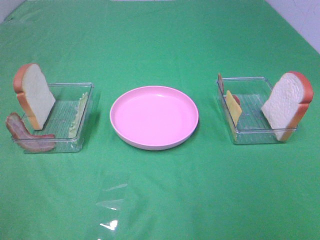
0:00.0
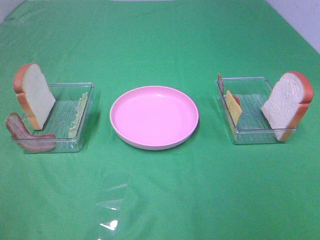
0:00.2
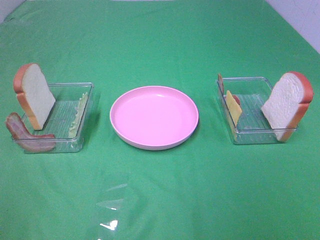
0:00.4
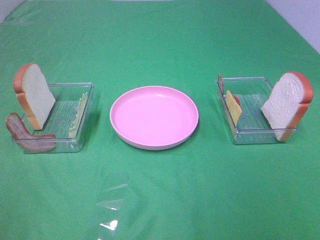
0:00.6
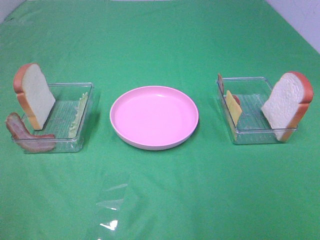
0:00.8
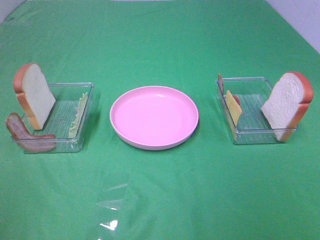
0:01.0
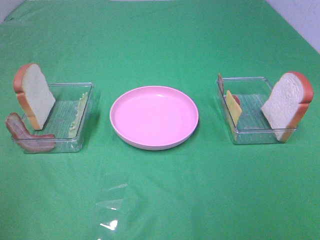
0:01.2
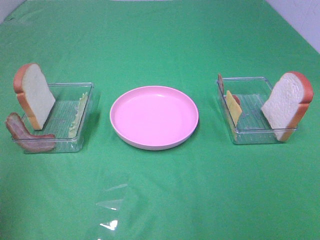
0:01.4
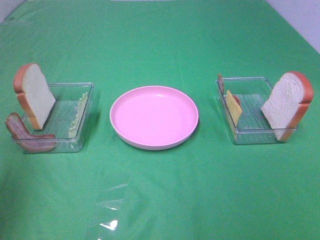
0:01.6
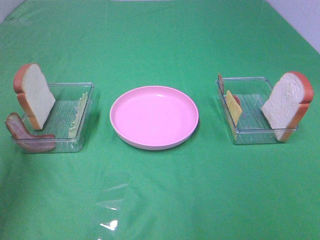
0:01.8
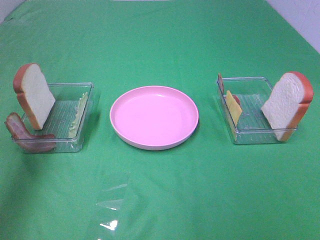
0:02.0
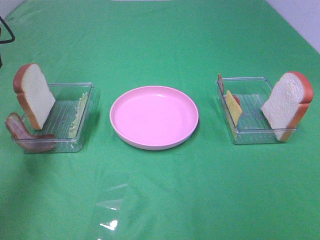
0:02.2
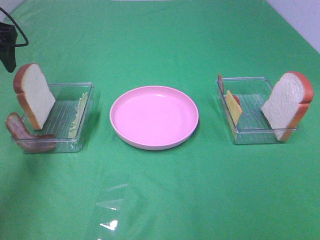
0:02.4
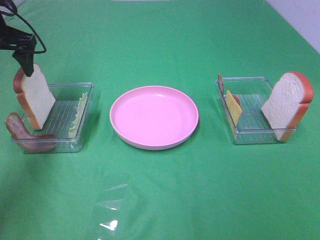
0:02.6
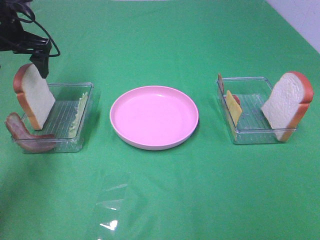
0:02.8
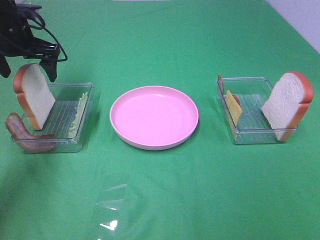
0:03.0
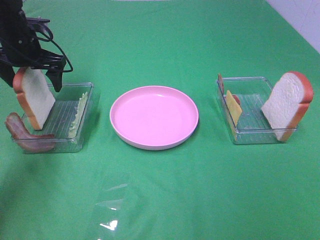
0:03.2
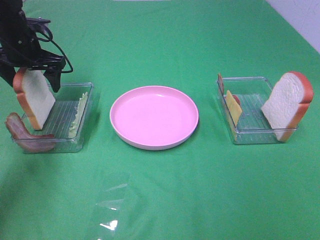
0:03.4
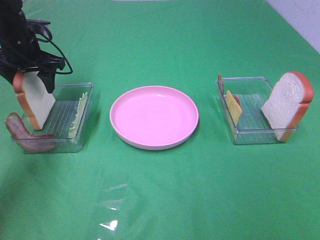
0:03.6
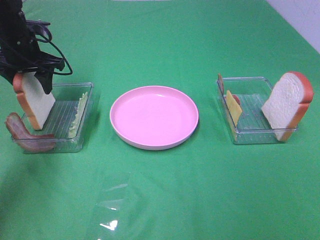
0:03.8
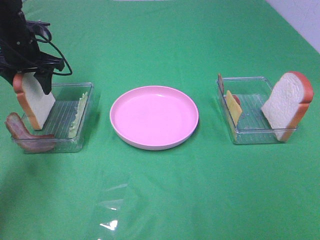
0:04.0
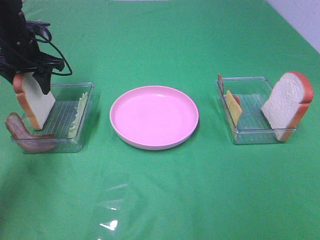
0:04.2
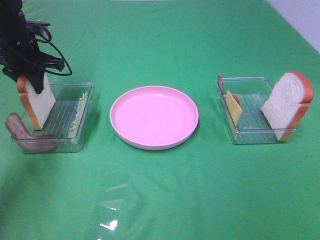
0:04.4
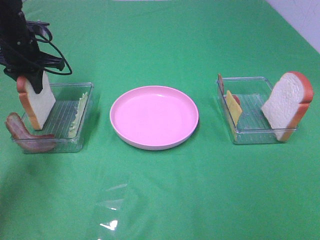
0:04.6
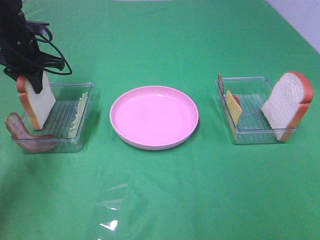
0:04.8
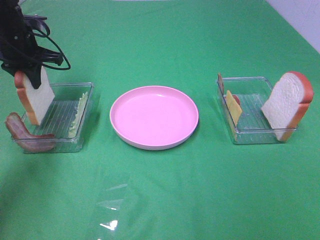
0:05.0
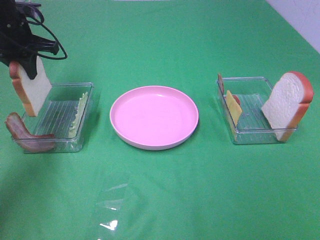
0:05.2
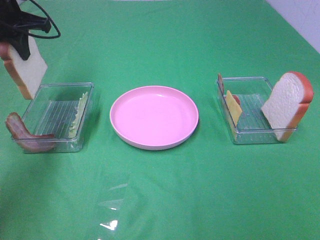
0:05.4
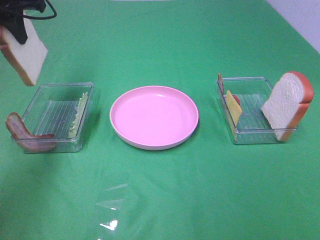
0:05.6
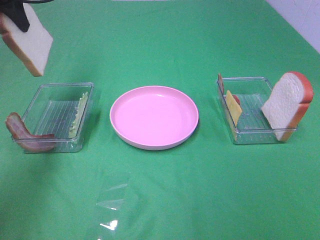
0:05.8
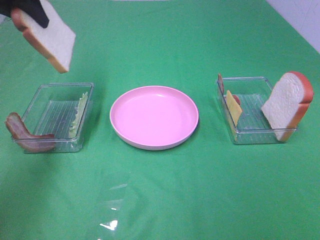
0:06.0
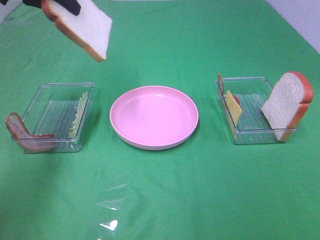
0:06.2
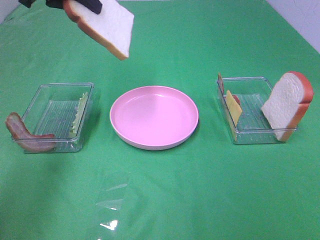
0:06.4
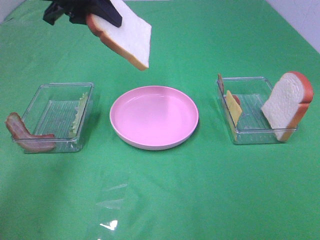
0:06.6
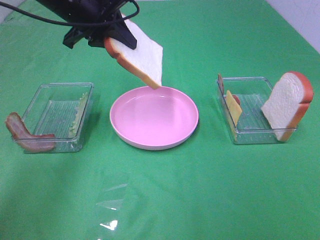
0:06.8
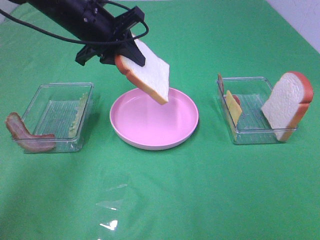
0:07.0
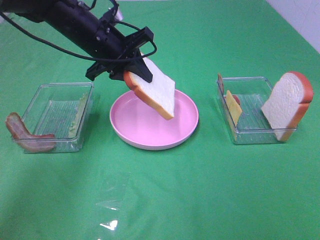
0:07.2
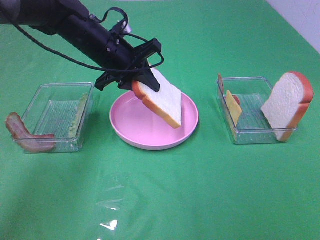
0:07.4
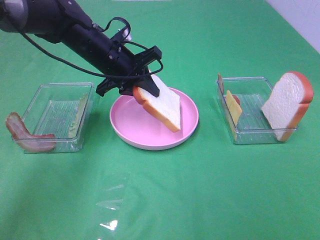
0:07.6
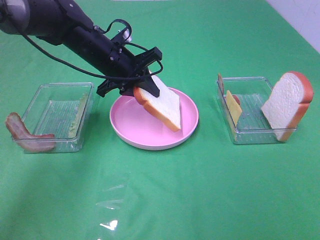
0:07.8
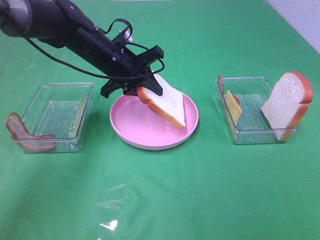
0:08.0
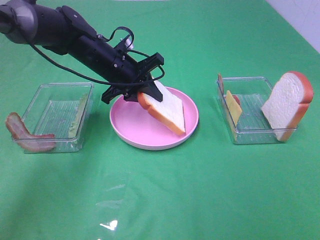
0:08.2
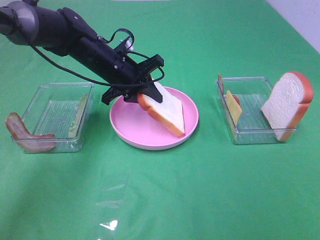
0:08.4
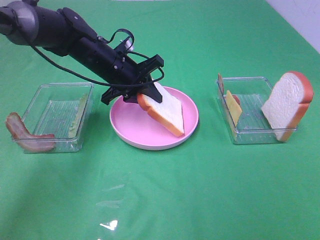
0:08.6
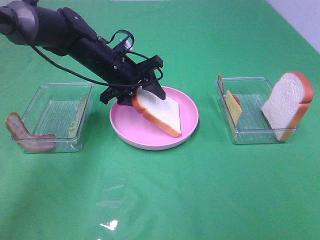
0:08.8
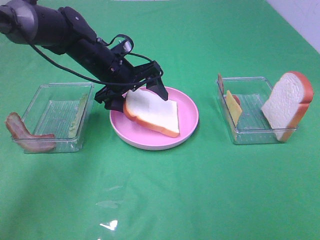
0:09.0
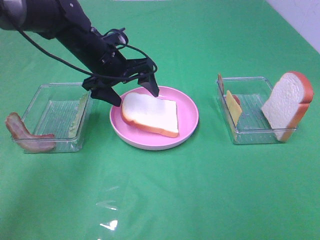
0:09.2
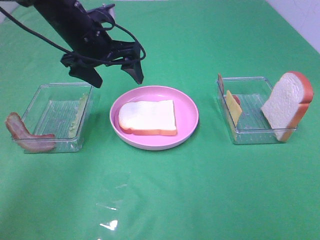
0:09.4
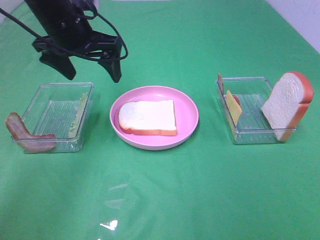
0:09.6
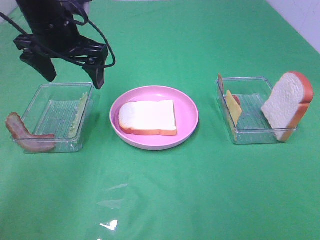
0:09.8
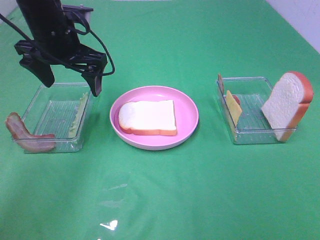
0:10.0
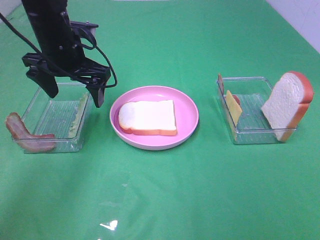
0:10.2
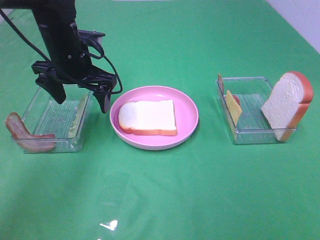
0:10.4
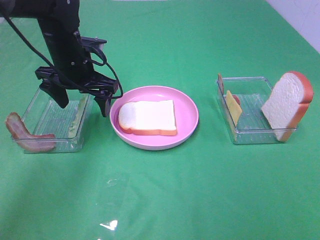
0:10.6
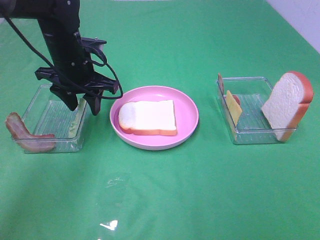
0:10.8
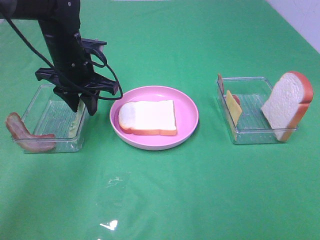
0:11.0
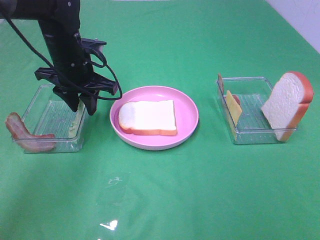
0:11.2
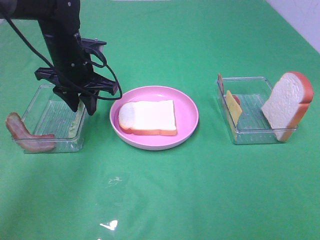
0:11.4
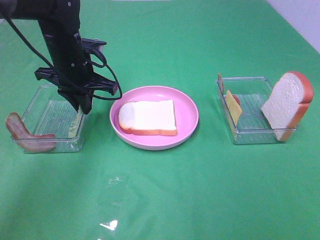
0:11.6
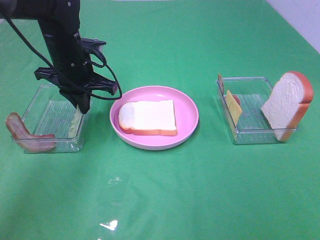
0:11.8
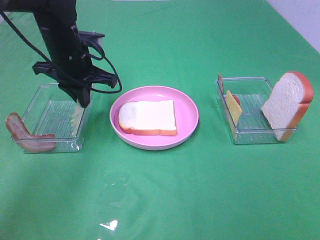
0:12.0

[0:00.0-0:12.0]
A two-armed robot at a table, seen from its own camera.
Task of the whole recording: Make sandwiches.
Step, 0:00.0 to 0:04.8: Left hand:grab the bread slice.
Step, 0:05.0 to 0:09.2: Left hand:place the bread slice on the plate.
Step, 0:09.4 to 0:11.8: Left hand:grab the lettuce slice.
0:00.0 to 0:01.6: The left gripper is displaced forward by approximately 20 cm.
0:01.6 to 0:03.0: The left gripper shifts about 30 cm forward and downward.
0:03.0 to 0:04.4: The left gripper closes its fingers.
0:04.4 to 0:06.0: The left gripper heads upward, covering approximately 15 cm.
0:06.0 to 0:07.6: The left gripper heads downward and to the right, covering roughly 20 cm.
0:07.6 to 0:09.0: The left gripper opens.
0:09.0 to 0:10.4: The left gripper heads to the left, covering some 5 cm.
0:10.4 to 0:12.0: The left gripper closes its fingers.

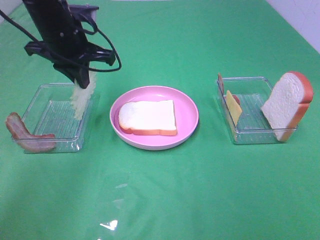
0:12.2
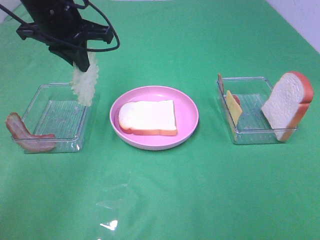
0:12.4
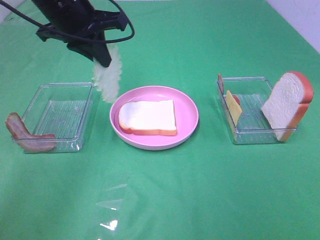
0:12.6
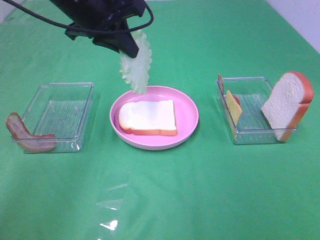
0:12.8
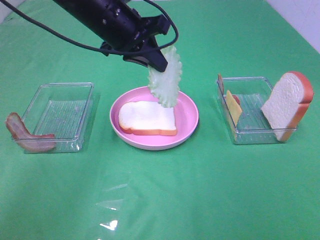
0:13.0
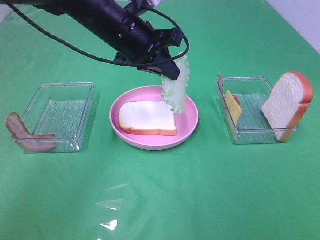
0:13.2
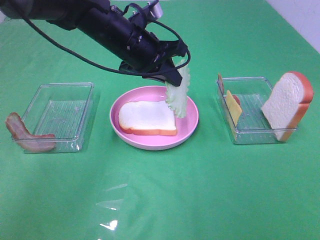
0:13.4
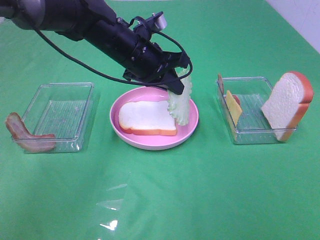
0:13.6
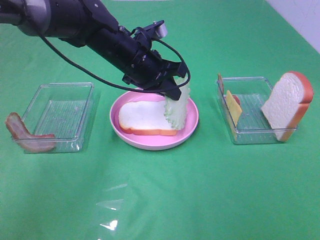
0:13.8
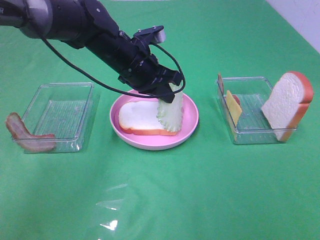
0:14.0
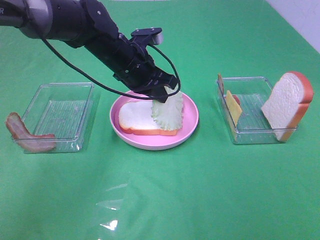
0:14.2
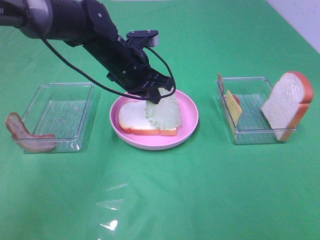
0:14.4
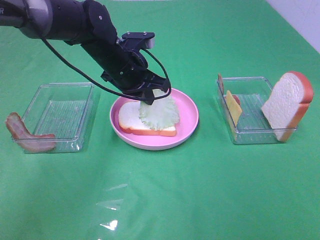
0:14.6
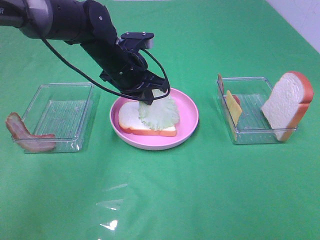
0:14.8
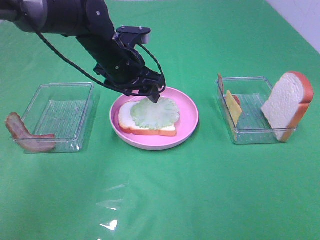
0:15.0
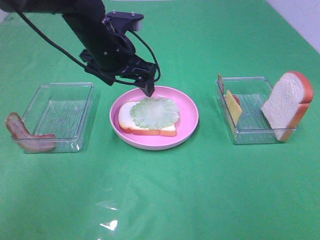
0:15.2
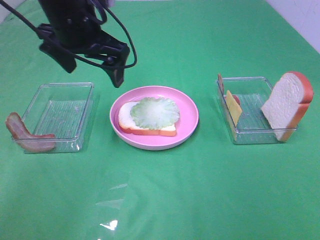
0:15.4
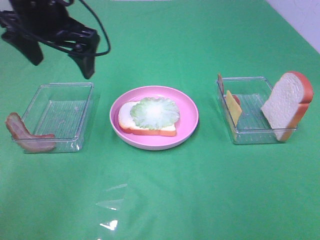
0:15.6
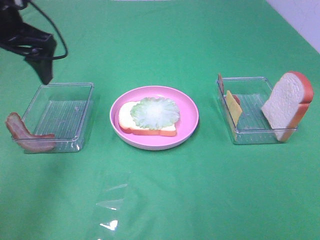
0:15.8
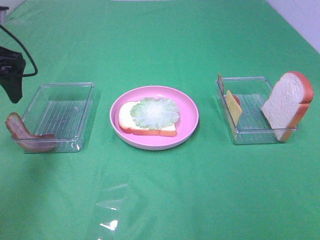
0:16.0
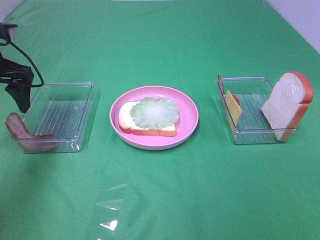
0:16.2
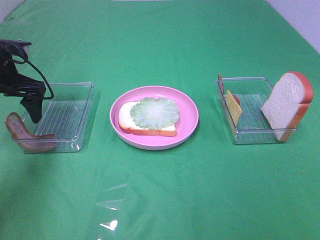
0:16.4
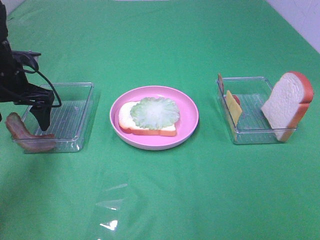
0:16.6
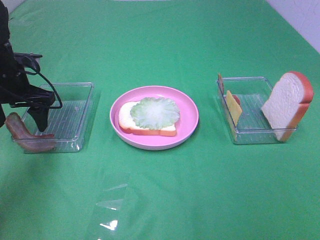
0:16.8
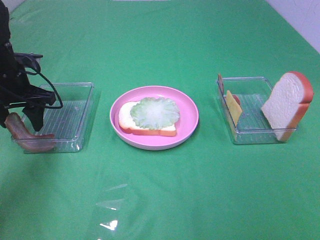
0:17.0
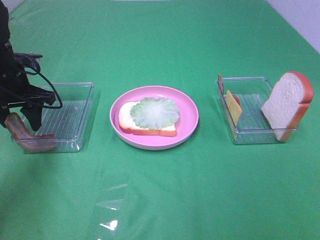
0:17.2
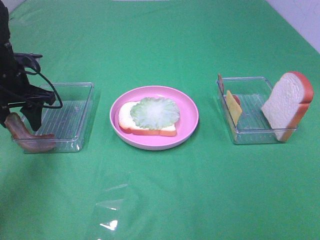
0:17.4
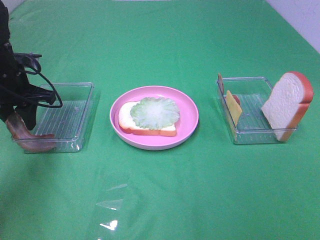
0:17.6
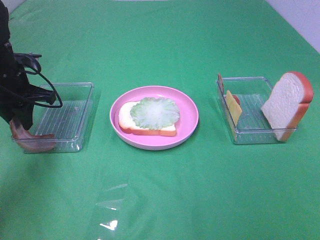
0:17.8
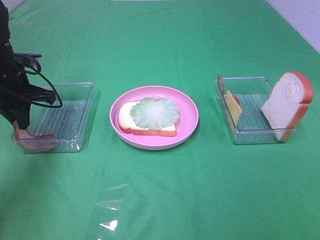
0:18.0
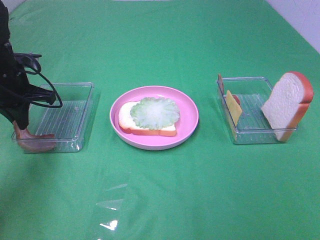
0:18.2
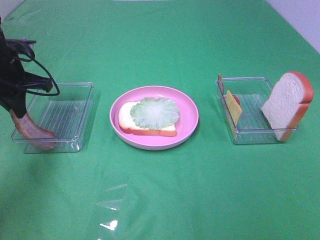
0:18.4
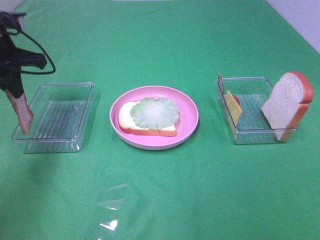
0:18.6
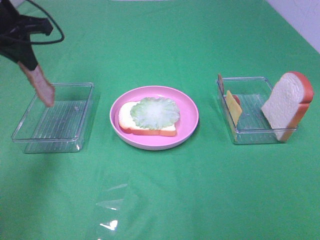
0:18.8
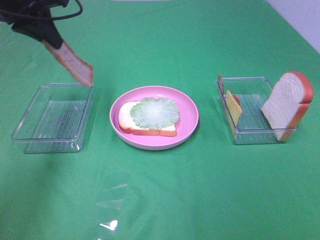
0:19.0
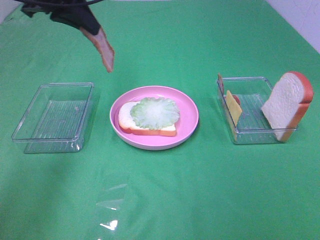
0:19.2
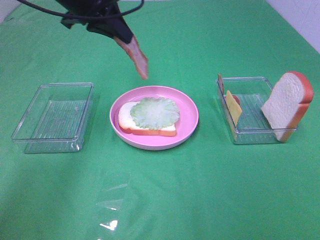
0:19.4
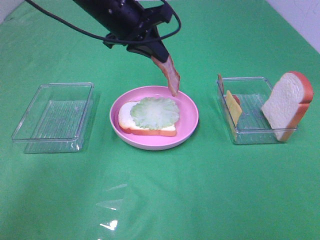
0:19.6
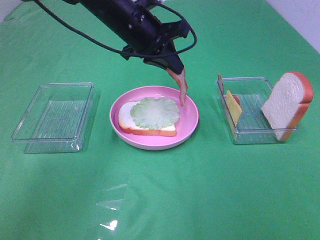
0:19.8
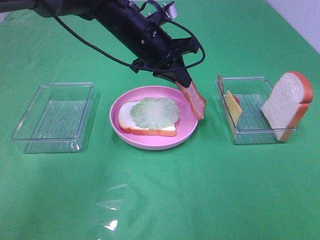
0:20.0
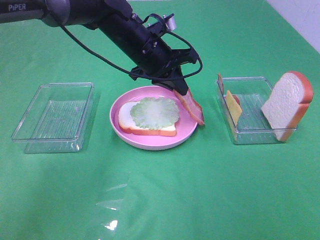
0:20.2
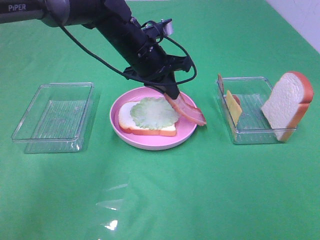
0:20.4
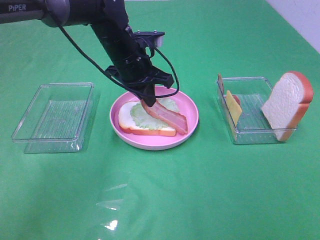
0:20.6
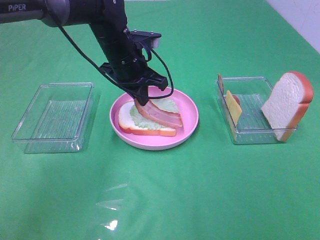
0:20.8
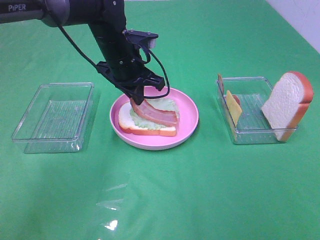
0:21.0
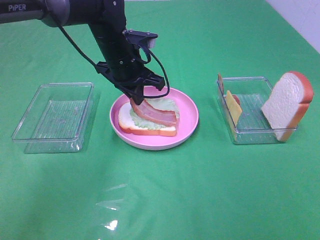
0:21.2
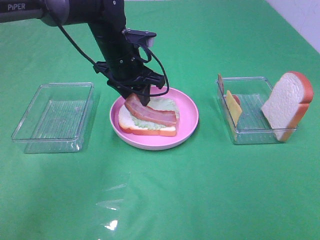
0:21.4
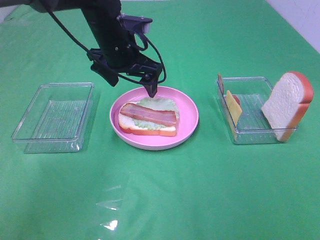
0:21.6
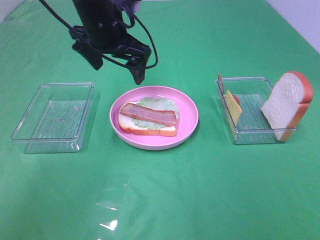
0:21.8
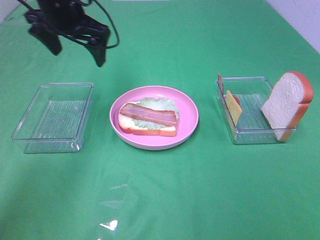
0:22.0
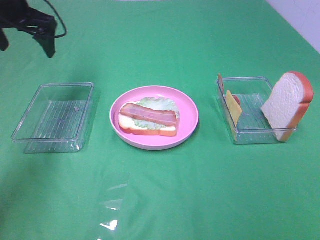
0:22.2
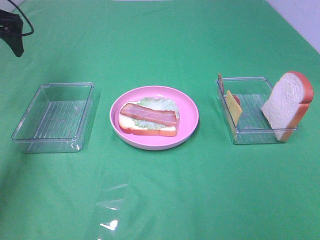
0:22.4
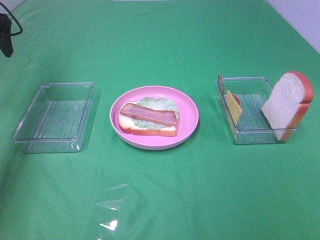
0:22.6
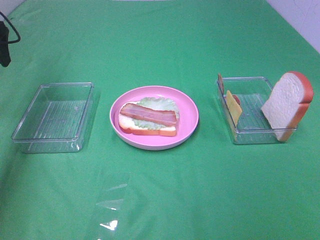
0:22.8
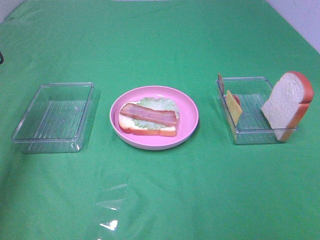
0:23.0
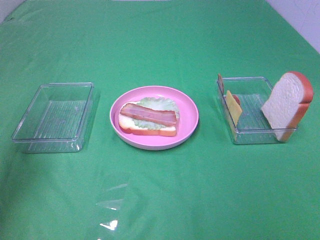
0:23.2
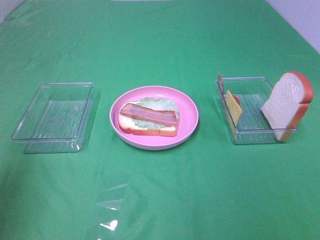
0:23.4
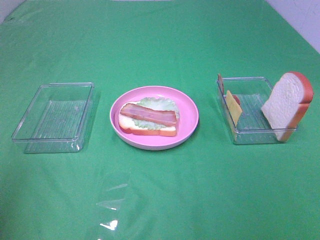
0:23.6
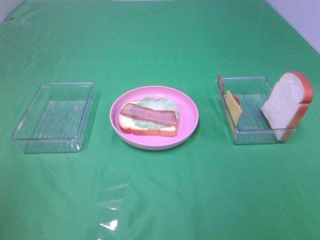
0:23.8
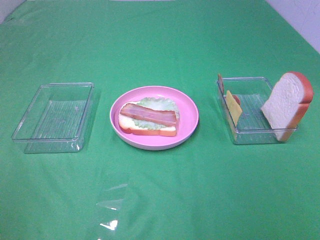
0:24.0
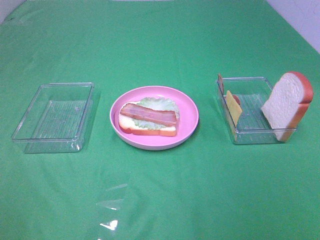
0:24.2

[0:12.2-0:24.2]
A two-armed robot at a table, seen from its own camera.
Task of the whole recording: Make sandwiches.
Step, 0:12.2 to 0:15.0: Left hand:place the lettuce slice on the bread slice.
Step, 0:15.2 to 0:18.0: Left hand:grab the bacon.
Step, 0:18.2 to 0:21.4: Left hand:place bacon on lettuce slice.
0:12.2 to 0:13.8: The left gripper moves to the right and downward, some 15 cm.
0:13.8 to 0:15.2: The left gripper changes place by approximately 5 cm, and opens up.
0:15.2 to 0:16.6: The left gripper moves to the left, approximately 20 cm.
0:16.6 to 0:18.2: The left gripper closes its fingers.
0:18.2 to 0:19.8: The left gripper travels to the right by roughly 25 cm.
0:19.8 to 0:21.2: The left gripper shifts about 5 cm downward.
0:21.2 to 0:22.6: The left gripper is displaced to the left by roughly 30 cm, and opens its fingers.
0:22.6 to 0:24.2: The left gripper moves backward, some 50 cm.
